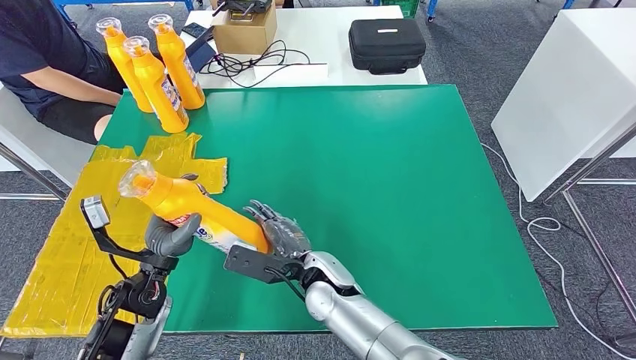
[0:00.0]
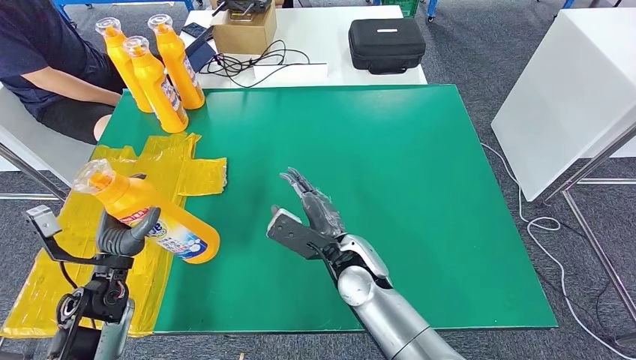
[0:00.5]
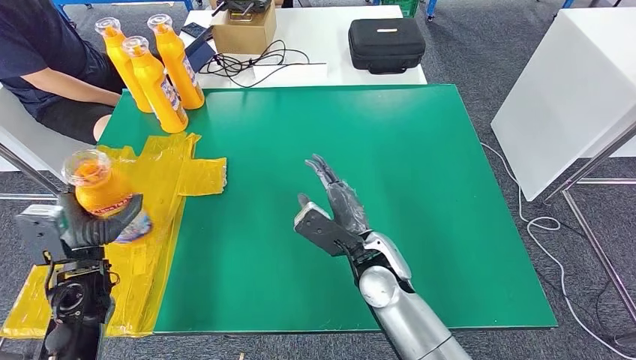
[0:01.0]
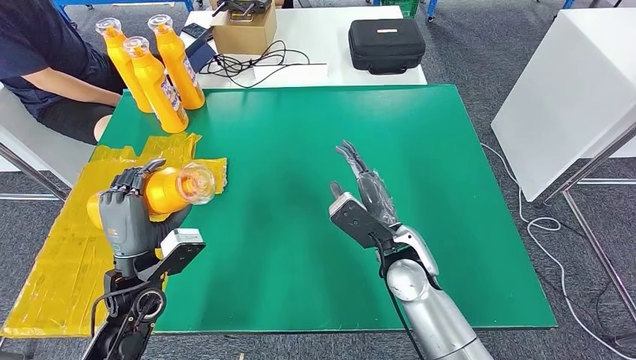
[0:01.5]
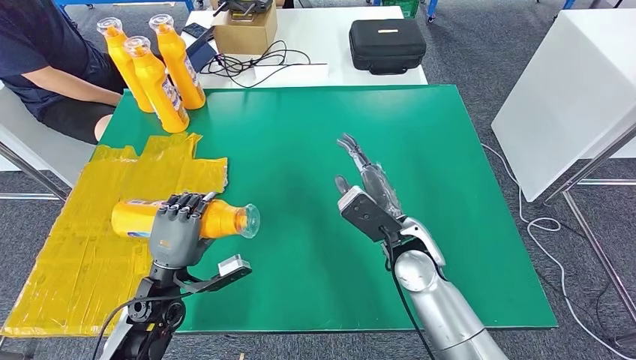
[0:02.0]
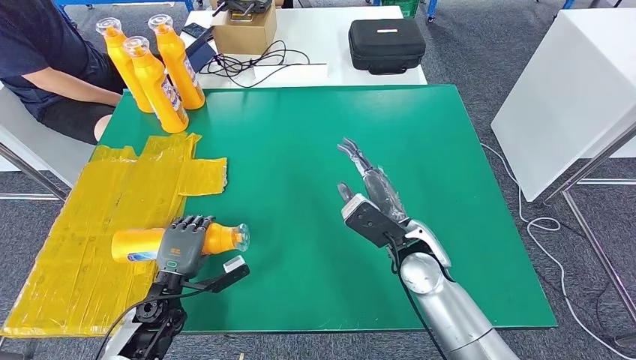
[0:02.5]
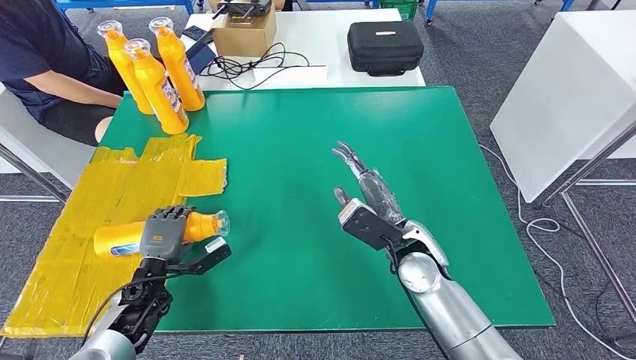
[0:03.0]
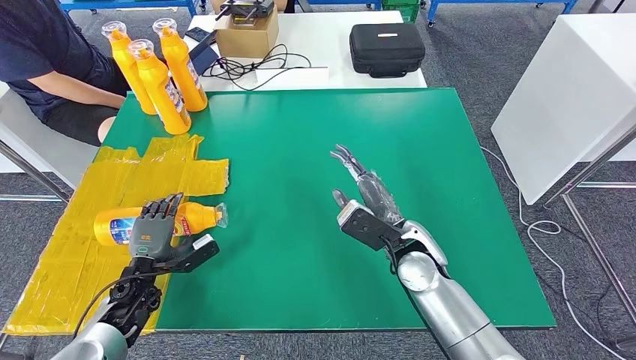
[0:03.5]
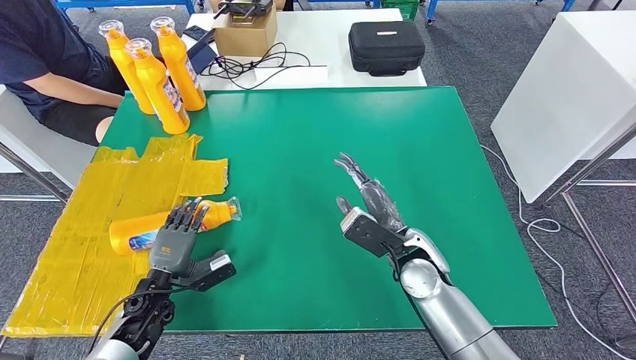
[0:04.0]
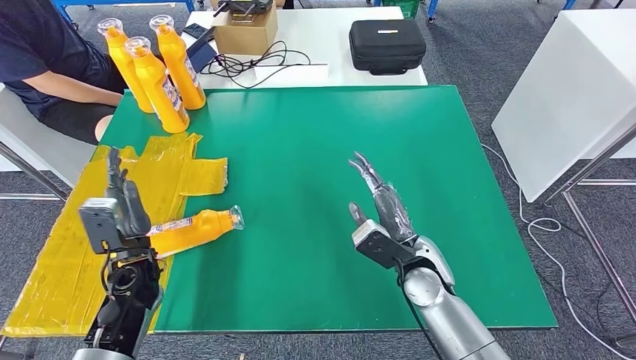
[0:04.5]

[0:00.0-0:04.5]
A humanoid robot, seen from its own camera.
Step, 0:00.5 to 0:04.5: Flip the fast-moving consumer goods bottle to the front side.
0:00.0 to 0:02.0: The right hand goes some 15 cm to the right, while the left hand reaches some 10 cm to the left, then returns.
0:02.0 to 0:04.5: The right hand moves about 5 cm. The left hand reaches approximately 10 cm downward, then returns.
